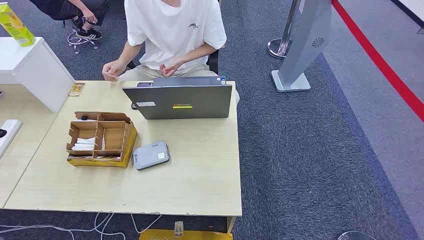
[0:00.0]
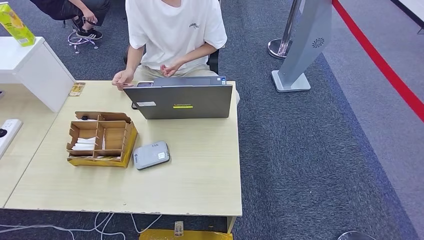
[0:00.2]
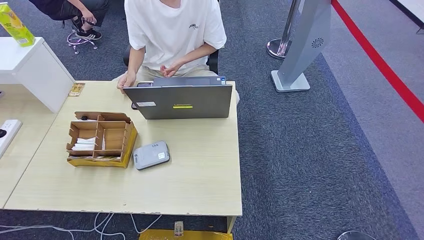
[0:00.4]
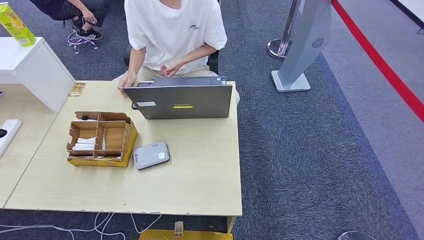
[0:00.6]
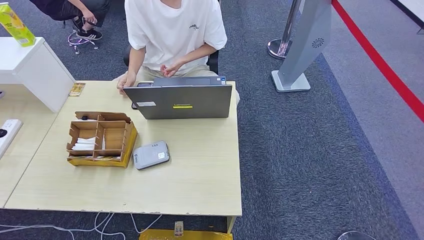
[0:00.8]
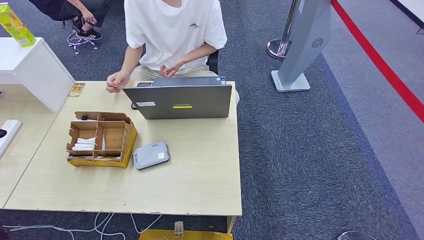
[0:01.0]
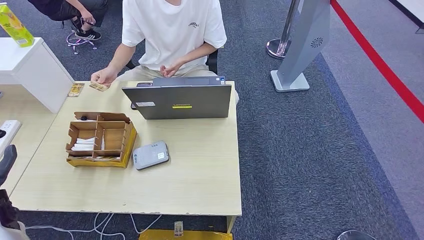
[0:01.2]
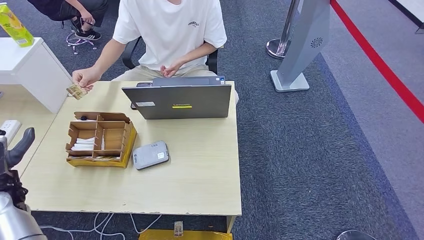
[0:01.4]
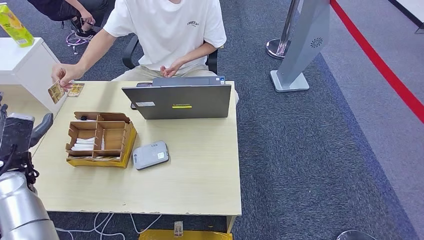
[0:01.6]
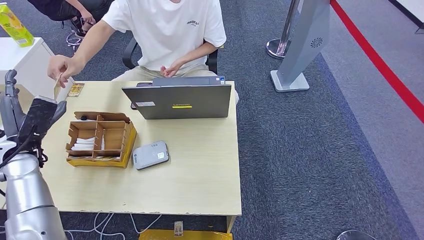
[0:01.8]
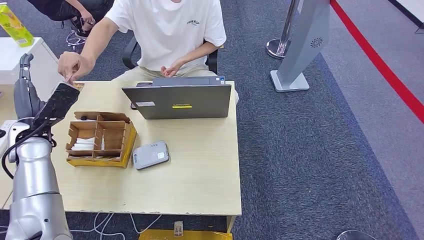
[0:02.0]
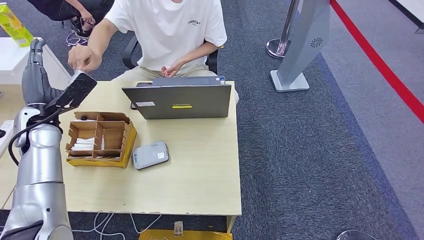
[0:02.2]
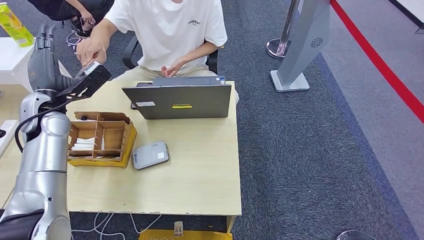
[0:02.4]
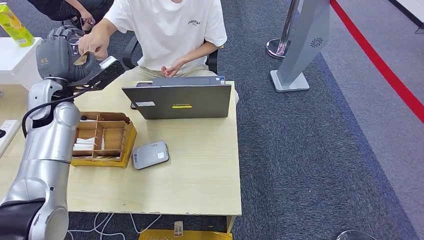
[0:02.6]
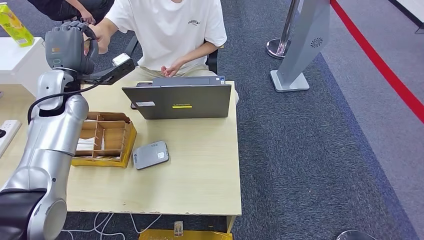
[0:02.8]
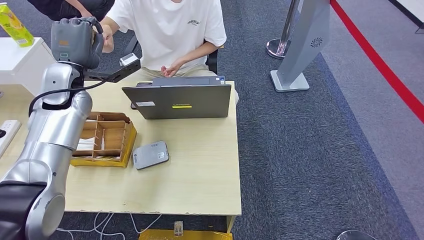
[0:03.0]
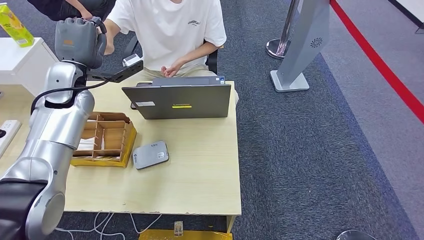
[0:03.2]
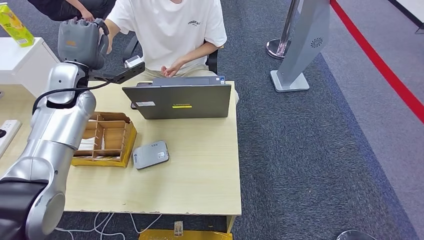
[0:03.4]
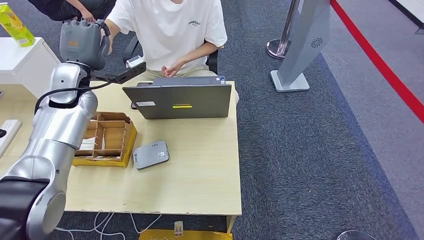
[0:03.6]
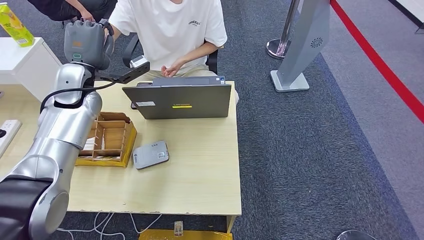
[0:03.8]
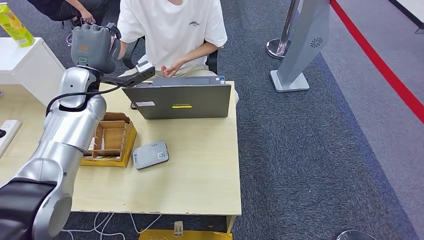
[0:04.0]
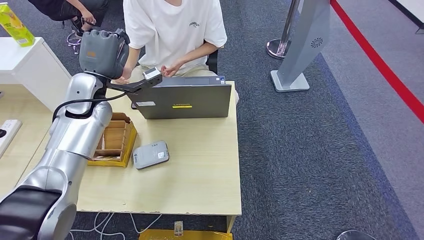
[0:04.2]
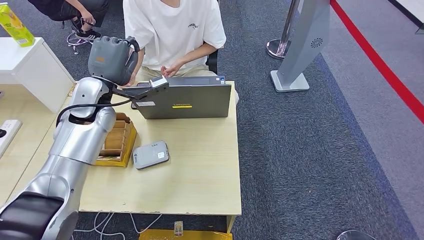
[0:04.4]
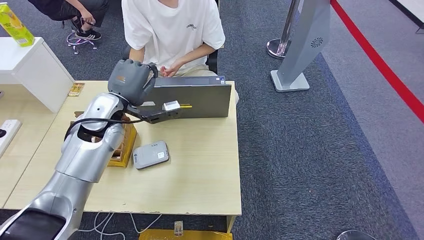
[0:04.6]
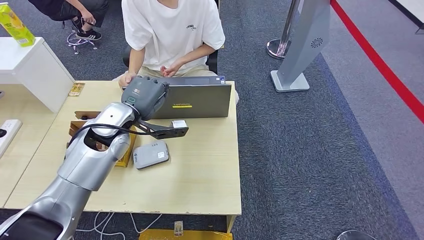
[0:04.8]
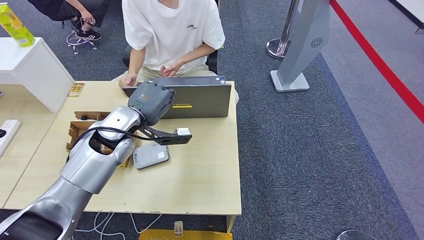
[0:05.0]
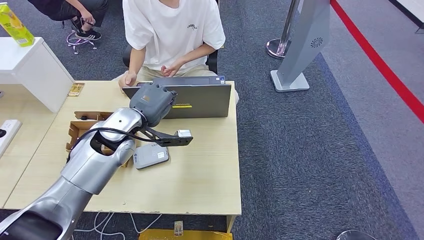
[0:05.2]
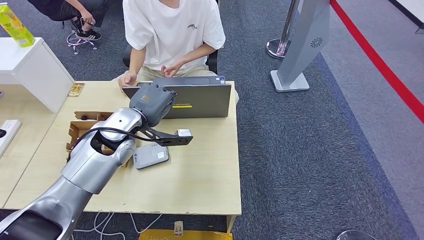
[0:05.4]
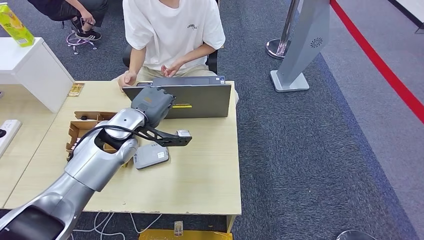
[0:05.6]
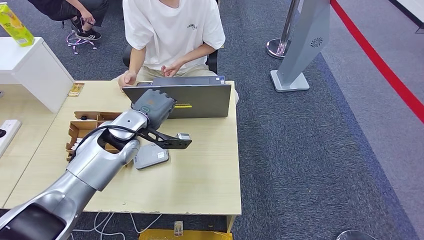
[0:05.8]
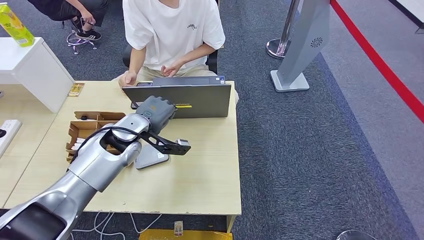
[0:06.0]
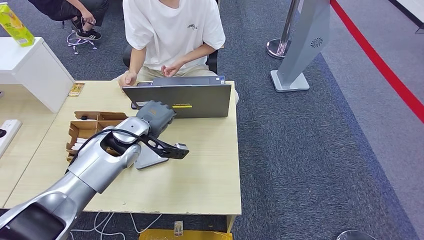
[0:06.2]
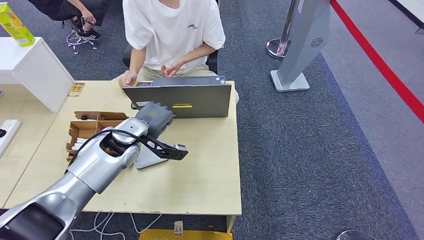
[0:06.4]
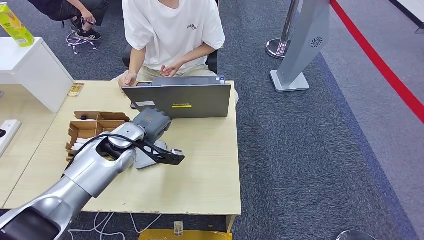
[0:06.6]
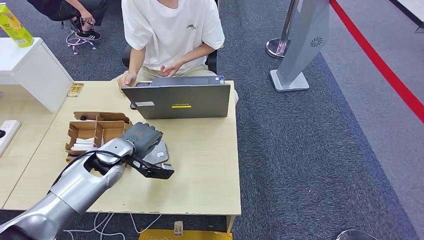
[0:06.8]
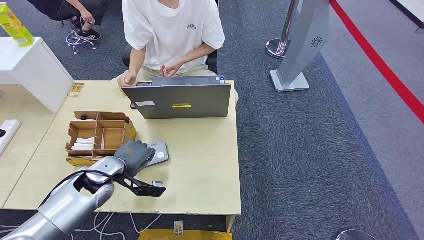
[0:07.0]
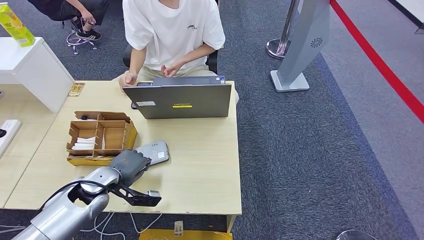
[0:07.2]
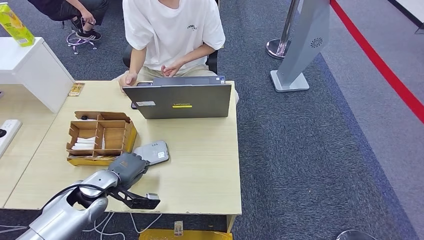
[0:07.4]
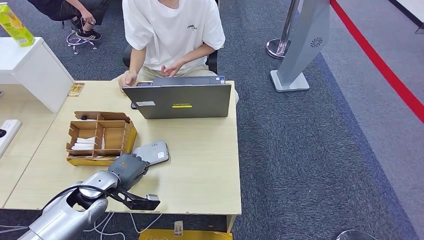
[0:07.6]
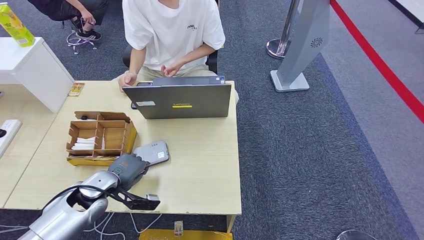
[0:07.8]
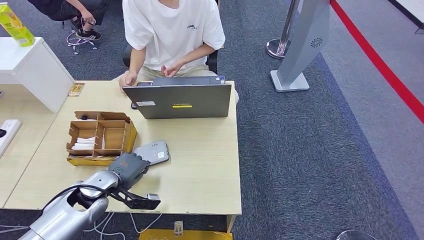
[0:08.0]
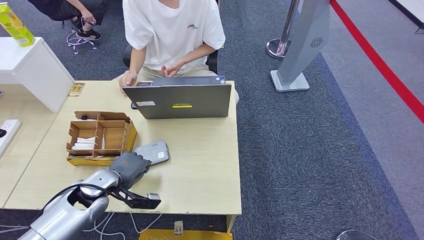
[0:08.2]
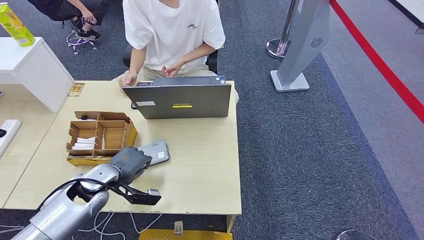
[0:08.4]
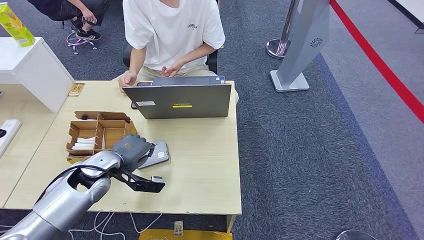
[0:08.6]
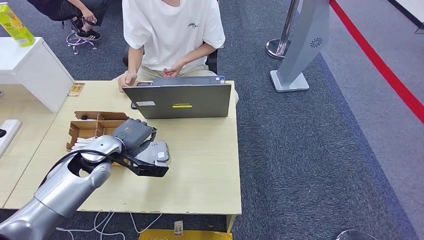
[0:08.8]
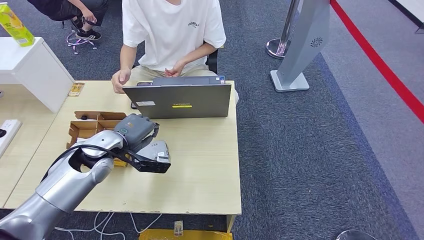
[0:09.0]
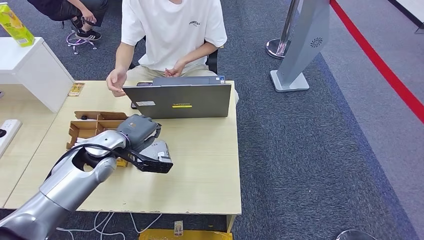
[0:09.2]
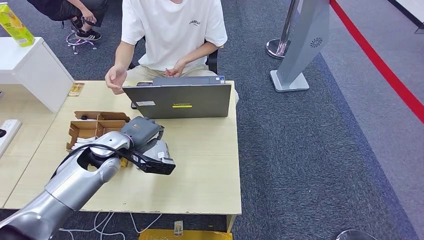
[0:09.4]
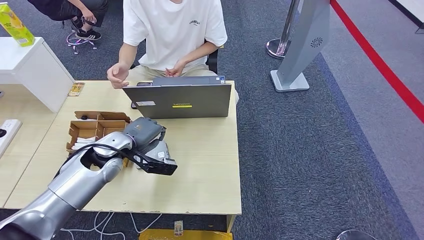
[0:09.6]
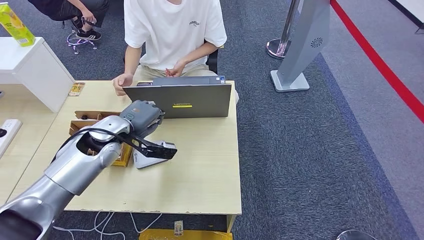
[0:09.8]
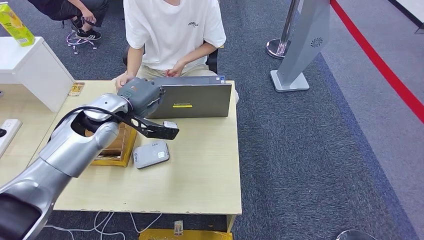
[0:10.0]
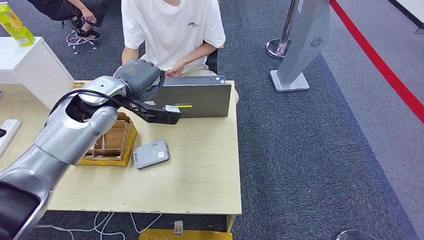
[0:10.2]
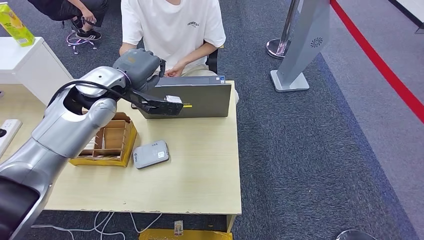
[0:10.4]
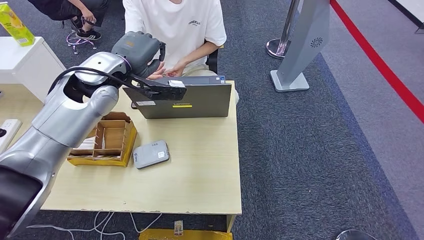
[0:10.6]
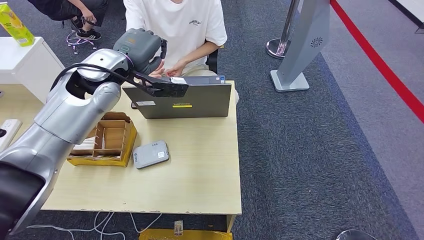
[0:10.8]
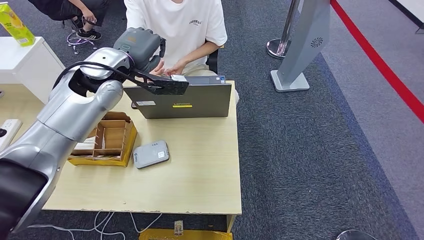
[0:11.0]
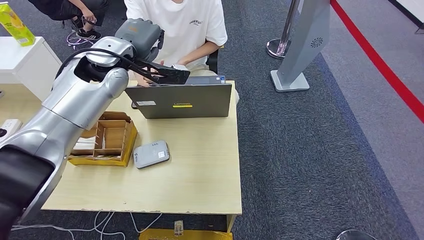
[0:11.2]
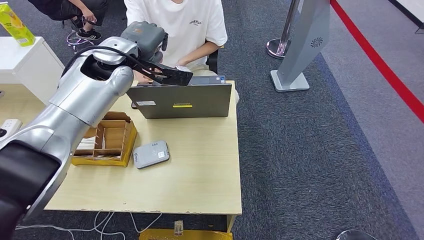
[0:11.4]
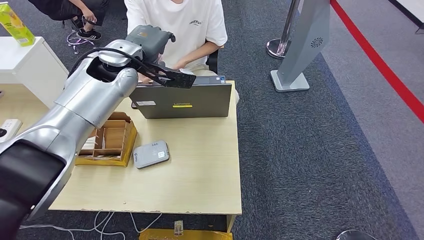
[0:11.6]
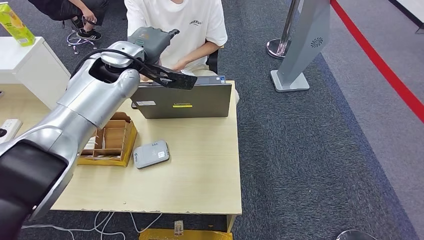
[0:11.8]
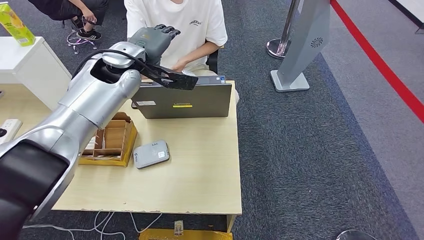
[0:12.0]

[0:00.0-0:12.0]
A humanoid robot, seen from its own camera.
Step, 0:00.0 to 0:03.0: Take the ID card from the person's hand.
Step, 0:03.2 to 0:08.2: Place the ID card on the card reader.
0:01.6 to 0:03.0: The left hand shifts approximately 25 cm forward, upward and to the right.
0:03.0 to 0:04.4: The left hand heads to the right, covering about 5 cm.
0:04.4 to 0:06.0: The left hand goes roughly 10 cm downward and to the right.
0:06.0 to 0:07.6: The left hand shifts some 20 cm downward, backward and to the left.
0:07.6 to 0:09.0: The left hand shifts about 10 cm upward and forward.
0:09.0 to 0:10.4: The left hand heads upward and forward, covering some 15 cm.
0:10.4 to 0:12.0: The left hand ends up roughly 5 cm from where it was.

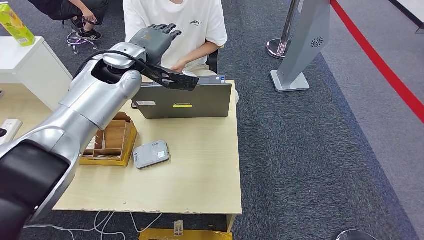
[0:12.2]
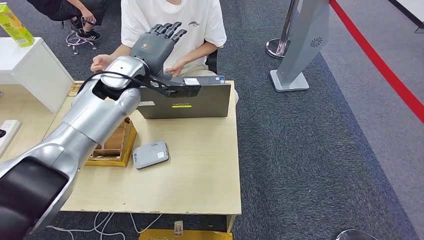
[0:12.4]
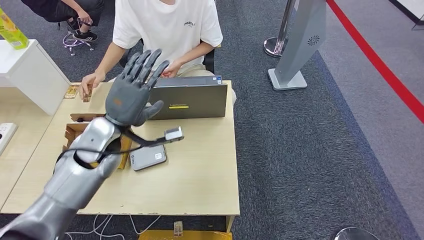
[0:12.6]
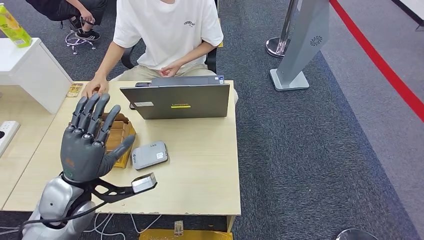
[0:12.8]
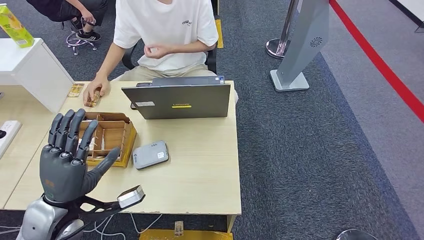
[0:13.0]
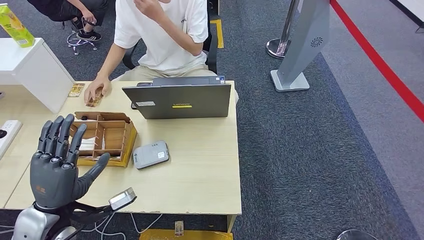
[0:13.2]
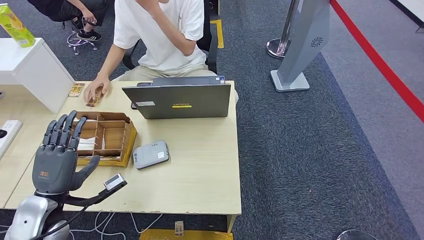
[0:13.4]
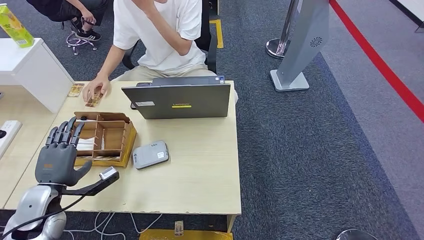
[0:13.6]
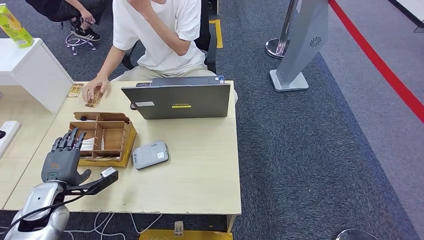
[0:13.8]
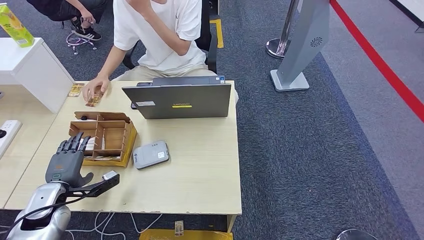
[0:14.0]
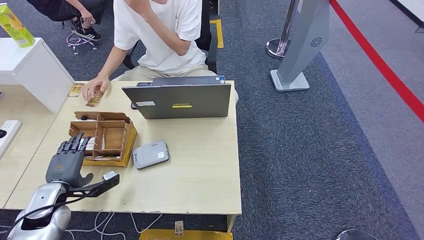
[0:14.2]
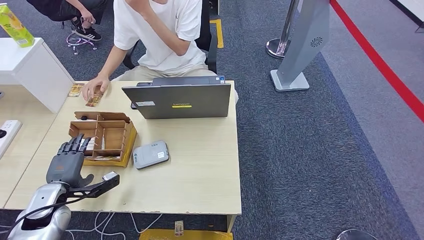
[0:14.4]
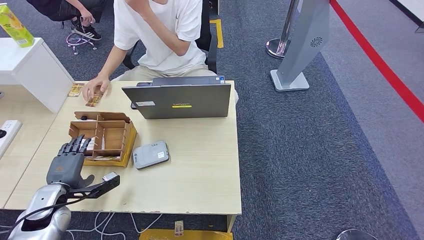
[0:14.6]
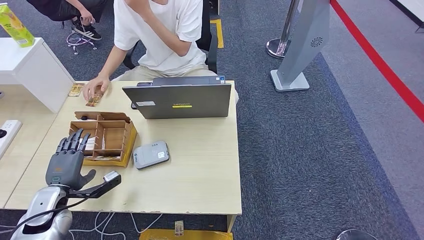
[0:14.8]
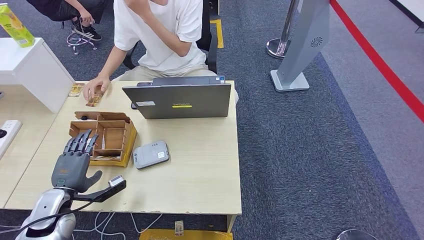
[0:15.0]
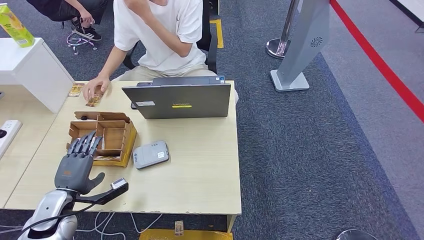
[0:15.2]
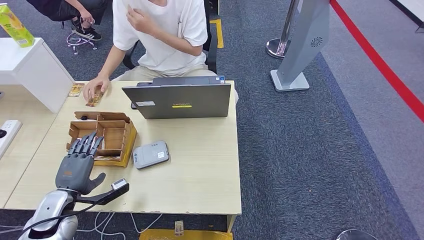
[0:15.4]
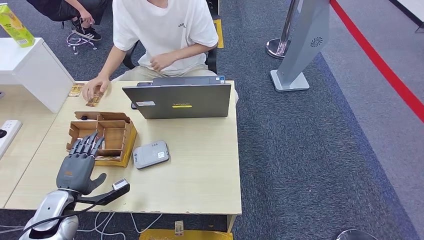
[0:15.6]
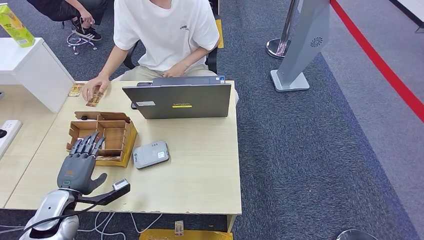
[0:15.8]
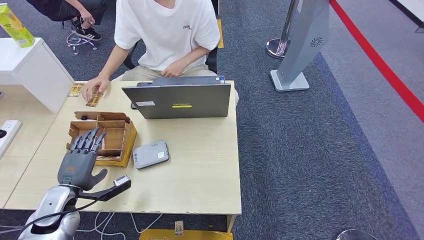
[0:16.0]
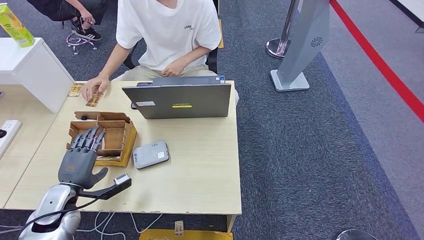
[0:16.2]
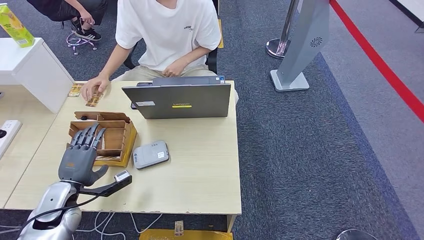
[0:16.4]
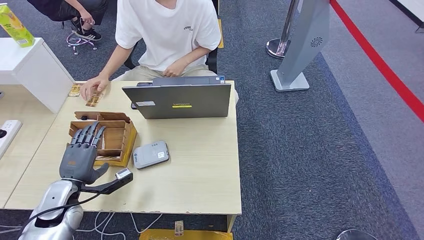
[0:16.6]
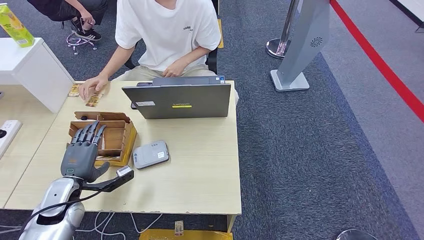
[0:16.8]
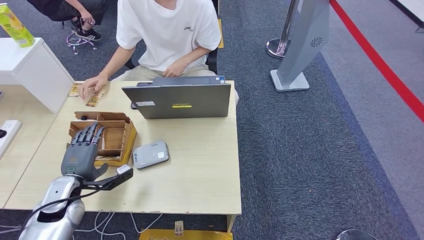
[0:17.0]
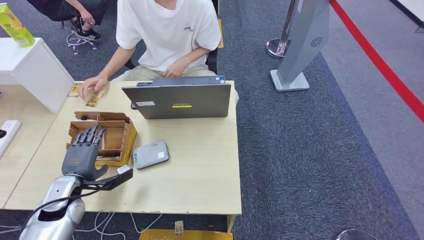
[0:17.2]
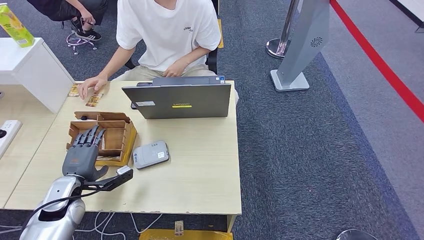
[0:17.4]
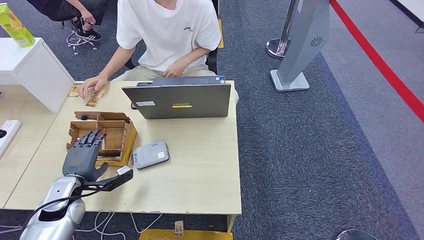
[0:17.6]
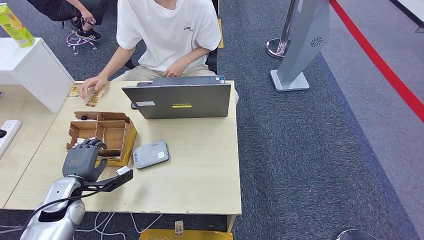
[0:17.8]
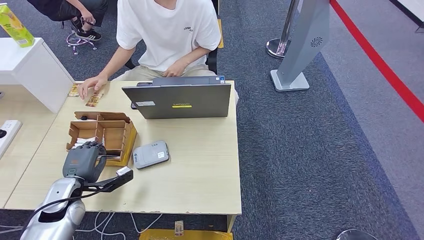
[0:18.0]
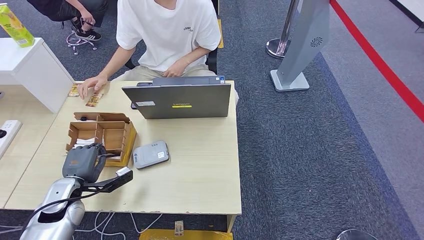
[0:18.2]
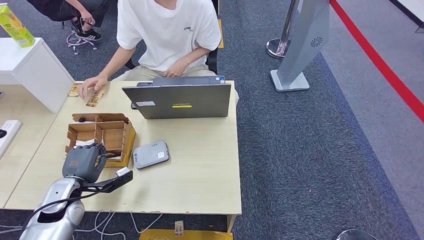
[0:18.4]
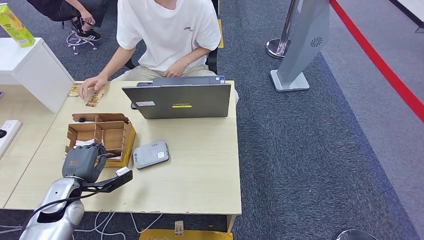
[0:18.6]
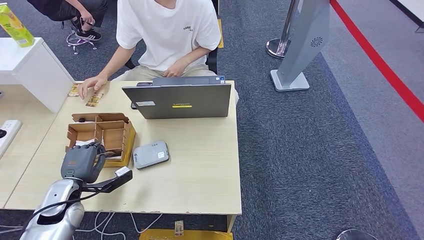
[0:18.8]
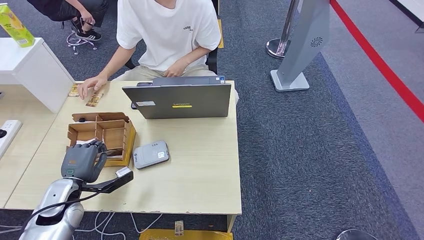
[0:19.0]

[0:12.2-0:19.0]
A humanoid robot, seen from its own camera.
Step, 0:12.4 to 0:18.8: Pick up the room key from the key card box.
0:15.0 to 0:19.0: The hands stay close to where they were, moving slightly.
